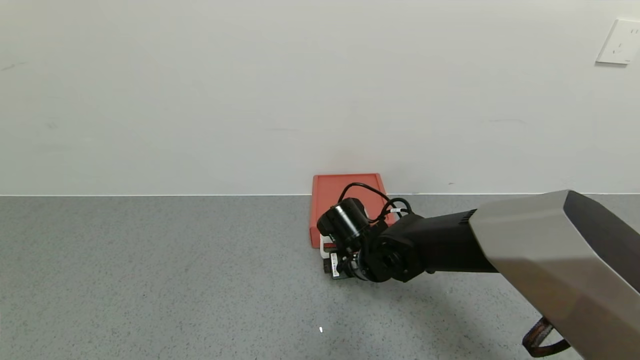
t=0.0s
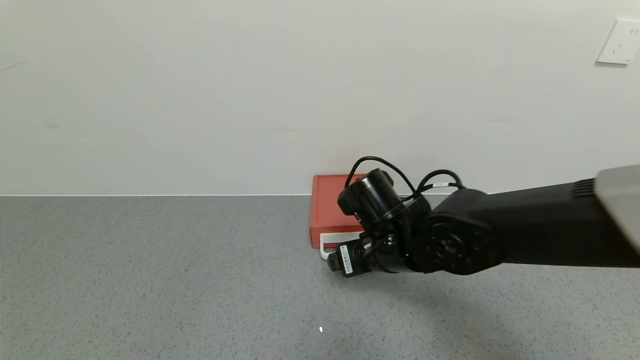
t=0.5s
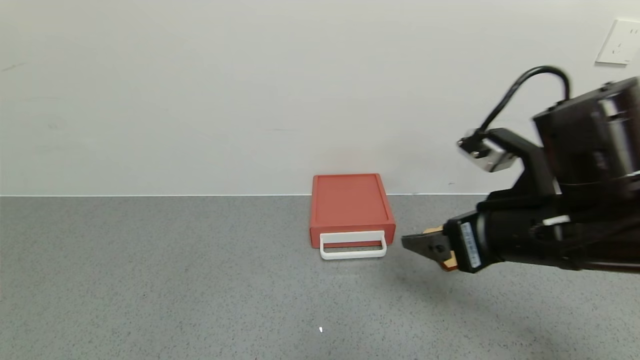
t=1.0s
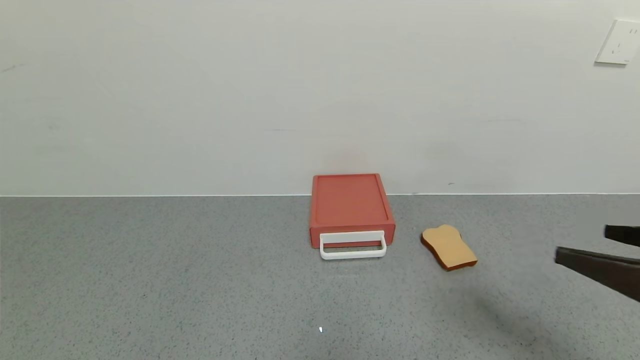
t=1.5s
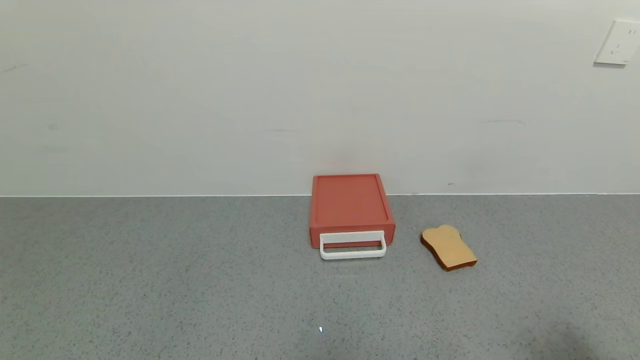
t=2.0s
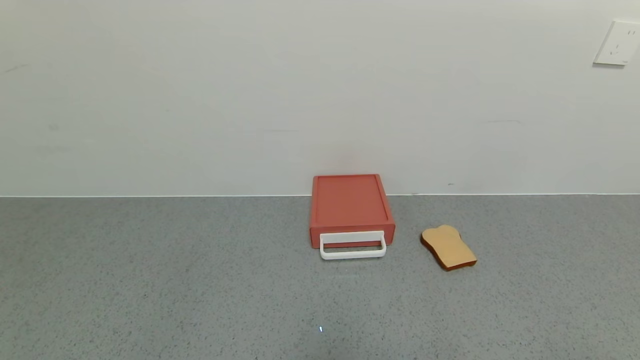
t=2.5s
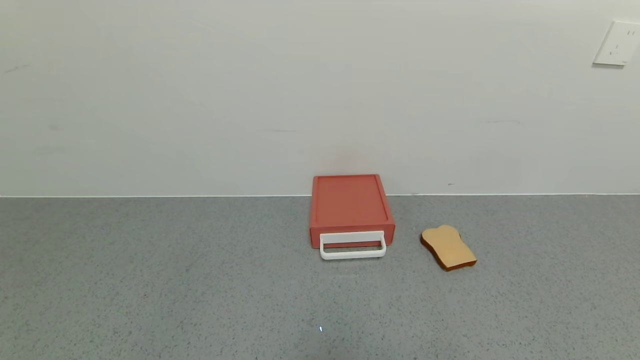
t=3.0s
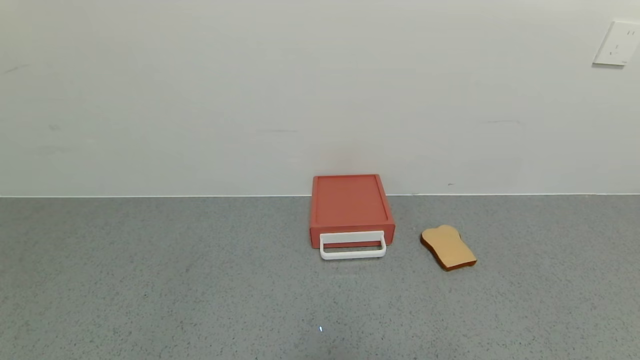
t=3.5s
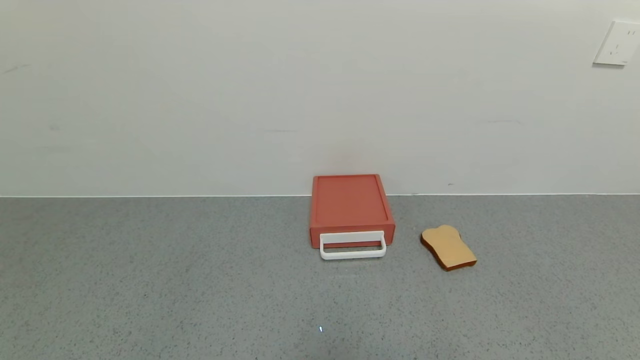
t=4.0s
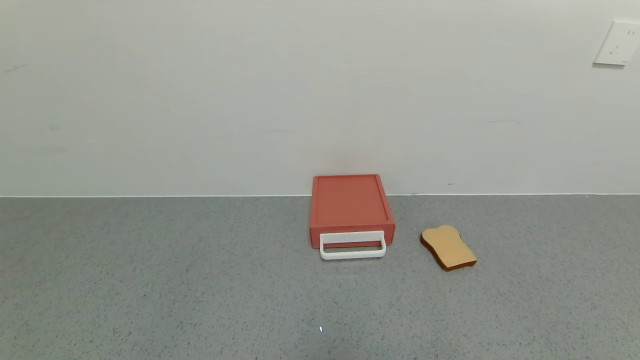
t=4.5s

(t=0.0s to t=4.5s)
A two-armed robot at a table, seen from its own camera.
Task of the whole recording: use the gripper to open the drawer and close the red drawer.
t=0.0s - t=2.0s: The right gripper shifts approximately 50 cm backward, to the right and upward.
